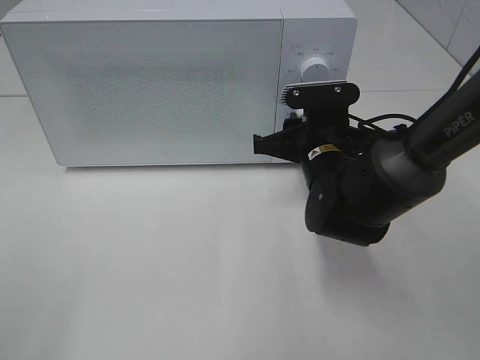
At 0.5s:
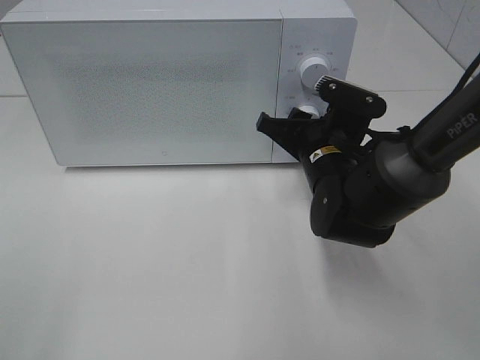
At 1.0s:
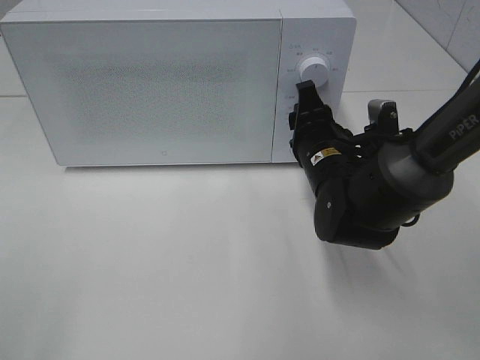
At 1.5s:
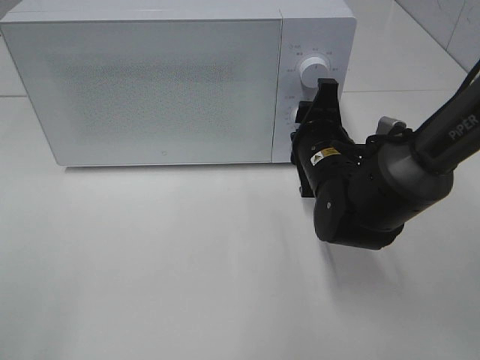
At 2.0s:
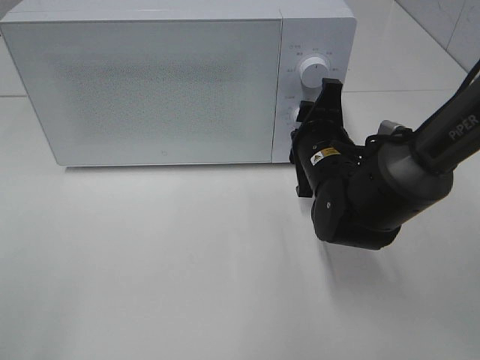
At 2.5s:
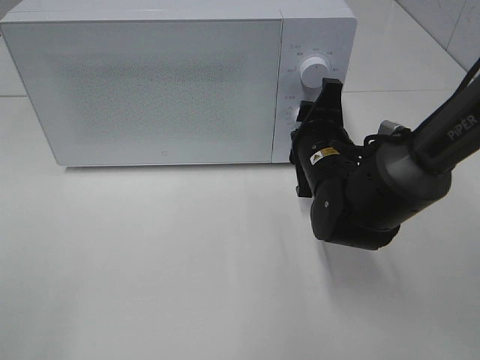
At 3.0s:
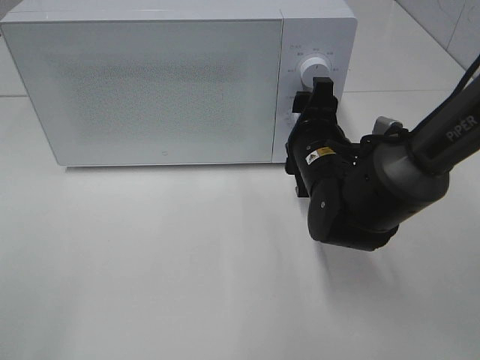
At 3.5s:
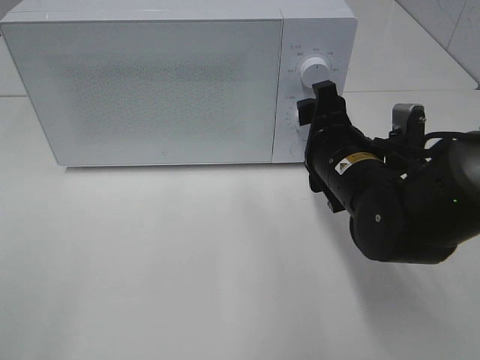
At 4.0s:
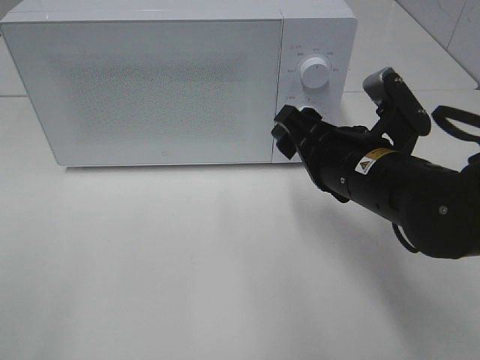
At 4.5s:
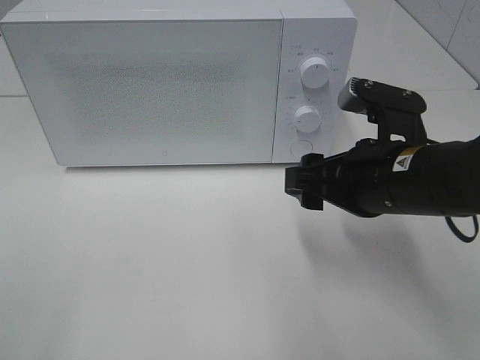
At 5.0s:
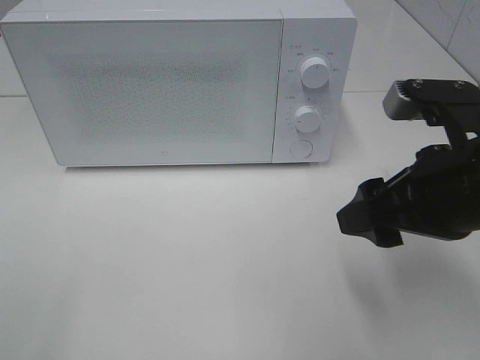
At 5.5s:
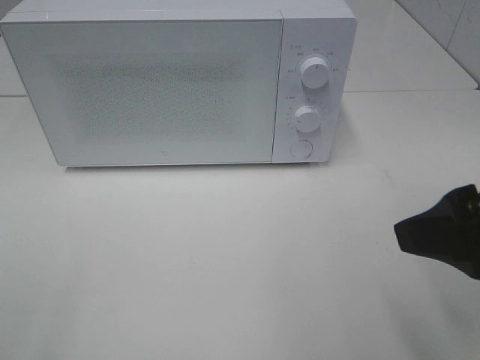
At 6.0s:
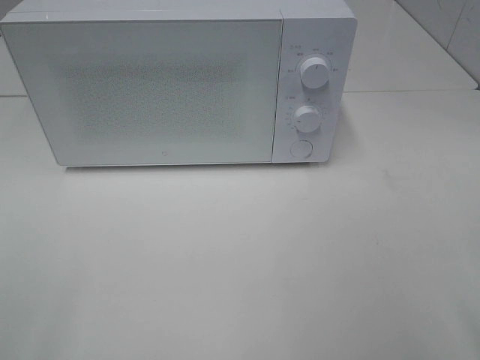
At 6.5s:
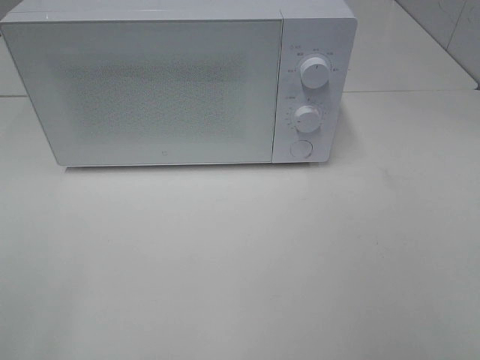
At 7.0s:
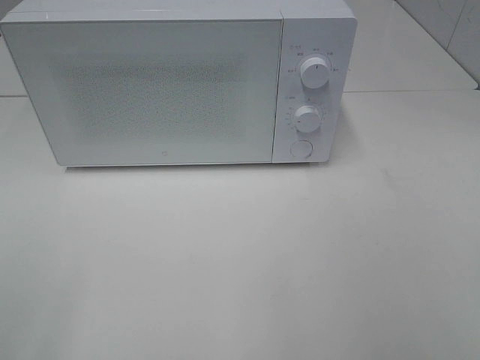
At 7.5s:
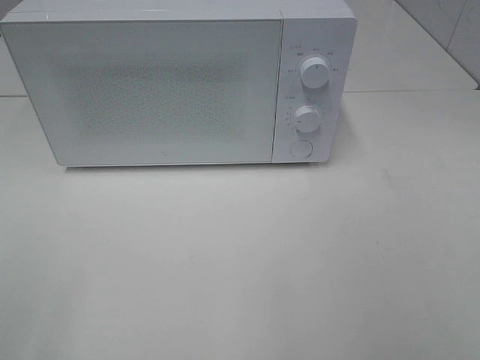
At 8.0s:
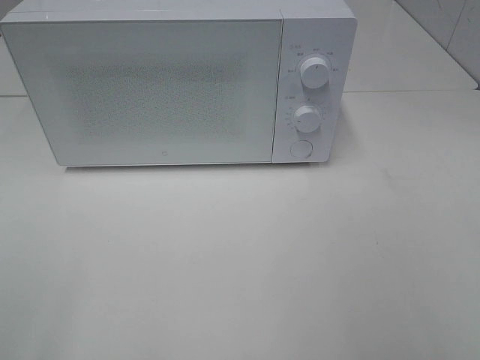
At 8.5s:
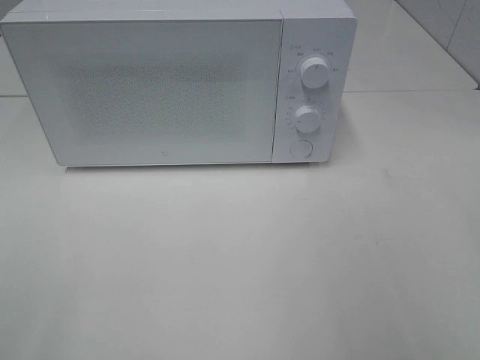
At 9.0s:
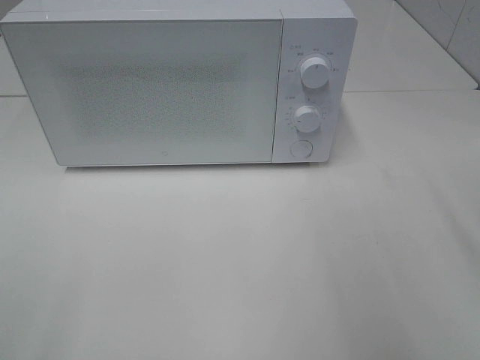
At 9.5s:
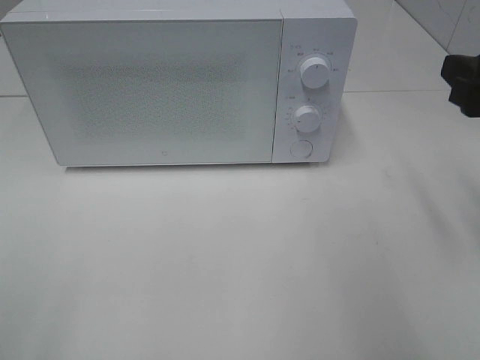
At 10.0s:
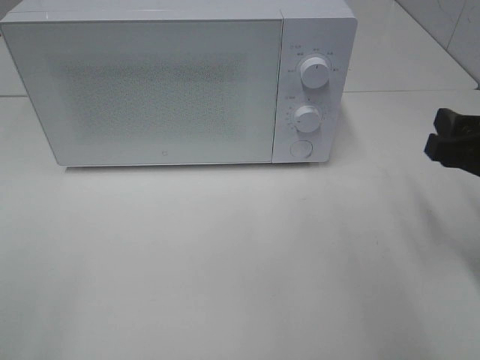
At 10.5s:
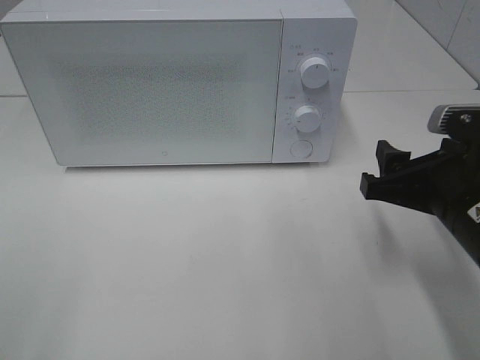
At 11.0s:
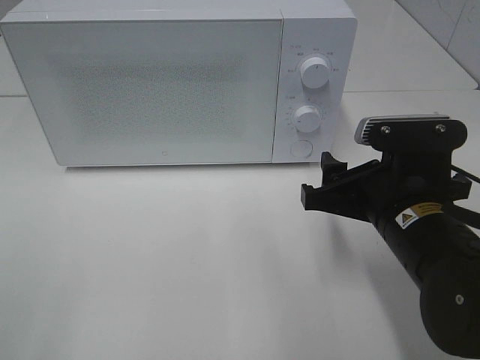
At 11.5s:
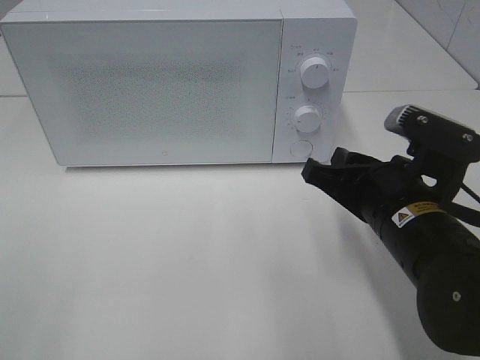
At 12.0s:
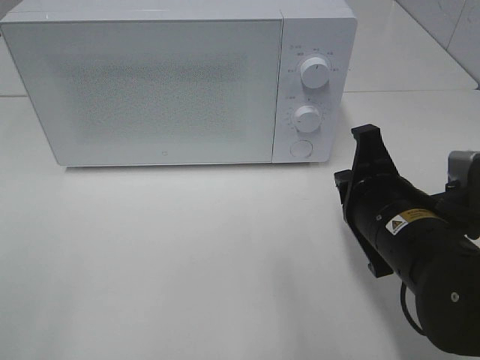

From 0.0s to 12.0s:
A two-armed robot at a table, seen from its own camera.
Task of the whole recording: Heat the burger.
Step, from 0.0s to 3.0s: Right hand: twist timer button.
From 2.0s to 4.0s: The right gripper is displaced backward and upward by about 10 cm, and opens its fingers.
From 4.0s to 6.0s: The right gripper moves backward, to the right and upward, some 25 cm.
From 8.0s to 10.0s: The right gripper shifts roughly 20 cm forward and downward.
From 10.0s to 12.0s: The right gripper heads to the left and downward, covering approximately 15 cm, and closes.

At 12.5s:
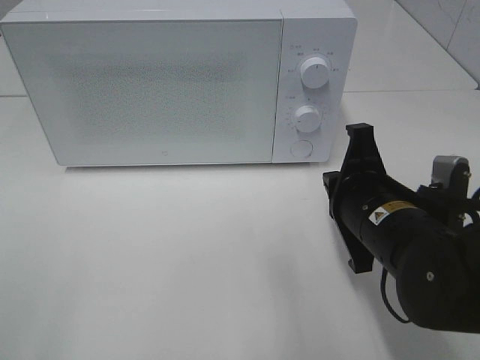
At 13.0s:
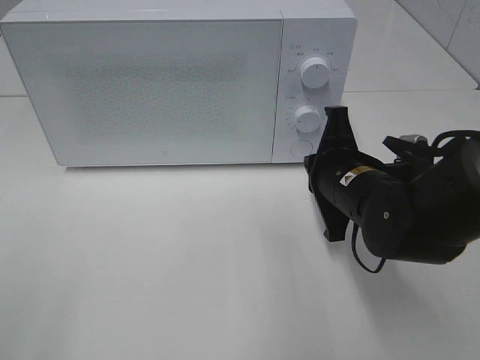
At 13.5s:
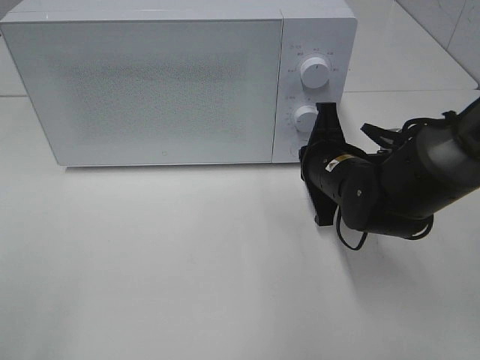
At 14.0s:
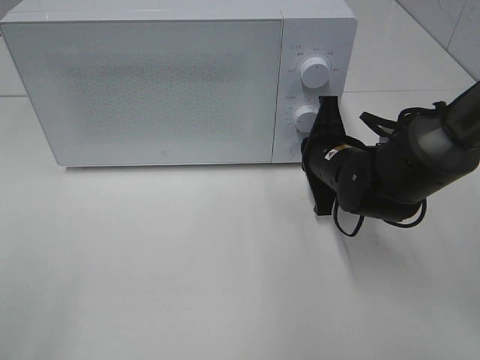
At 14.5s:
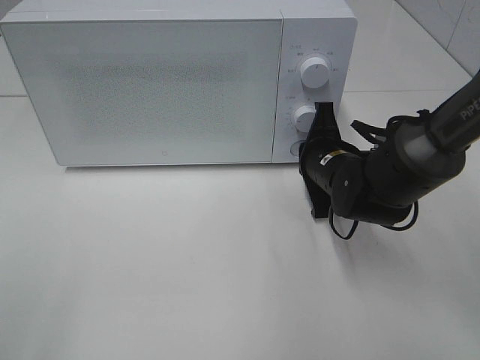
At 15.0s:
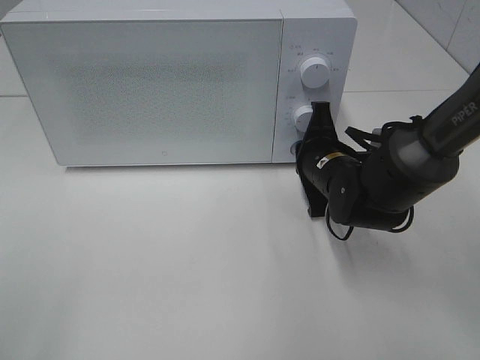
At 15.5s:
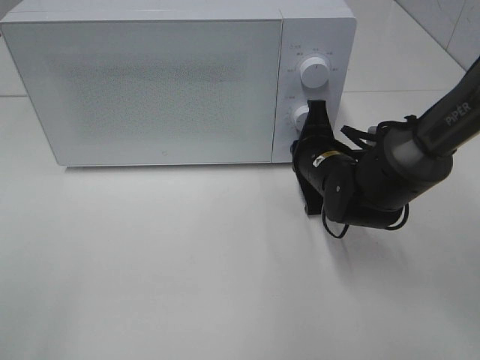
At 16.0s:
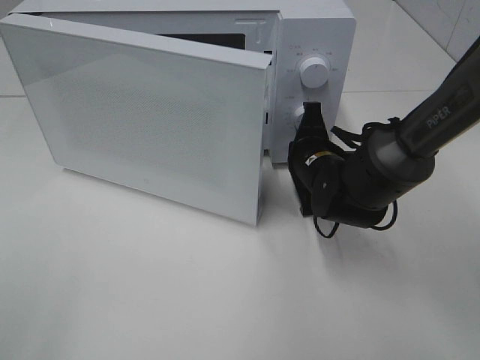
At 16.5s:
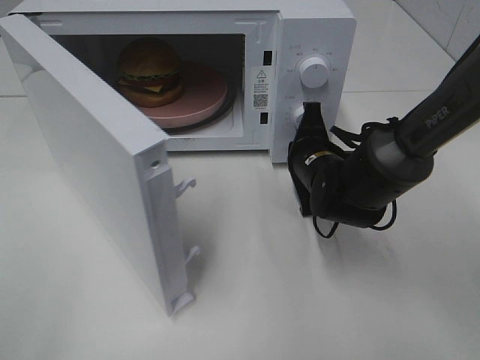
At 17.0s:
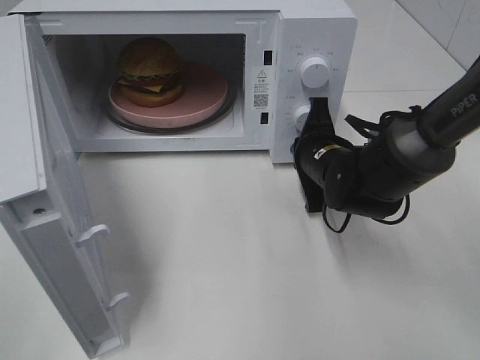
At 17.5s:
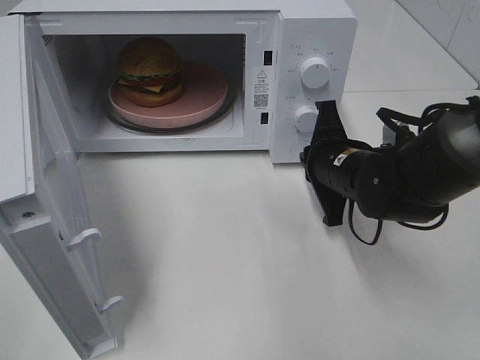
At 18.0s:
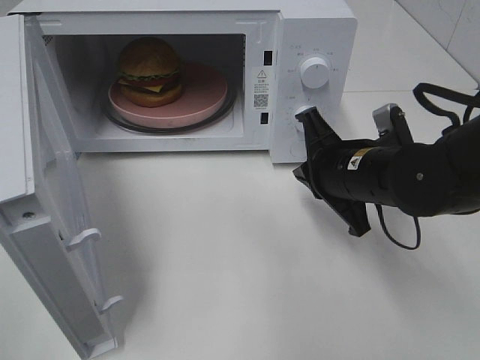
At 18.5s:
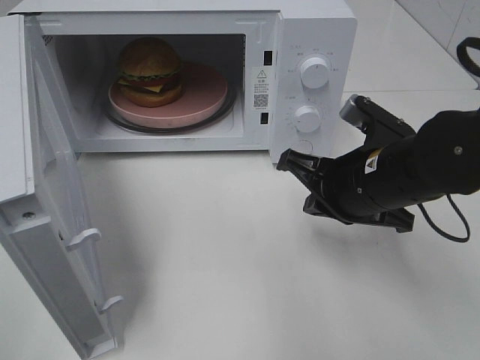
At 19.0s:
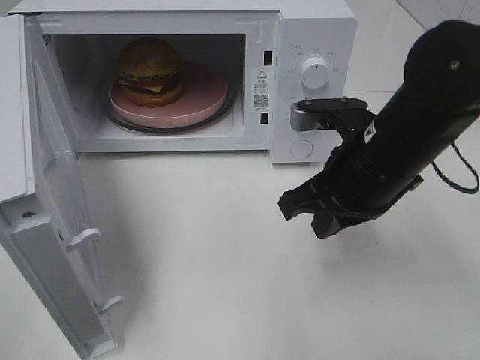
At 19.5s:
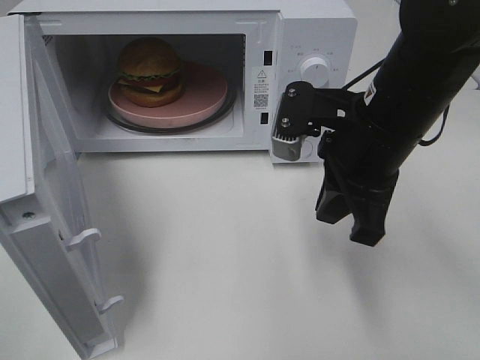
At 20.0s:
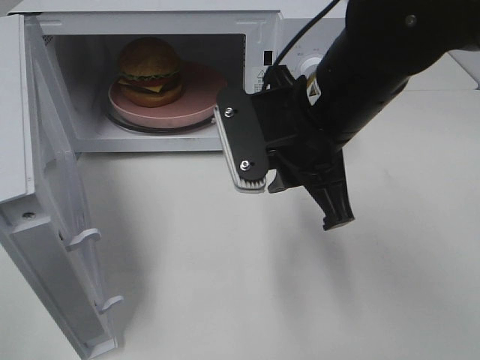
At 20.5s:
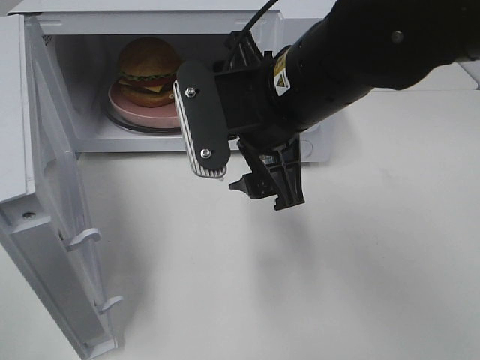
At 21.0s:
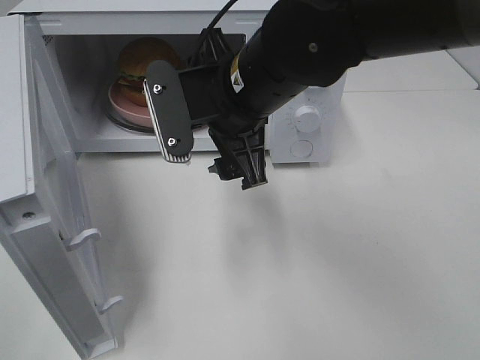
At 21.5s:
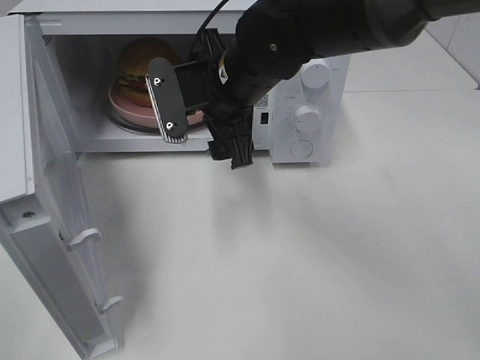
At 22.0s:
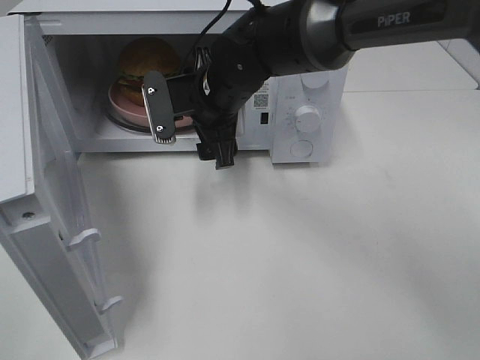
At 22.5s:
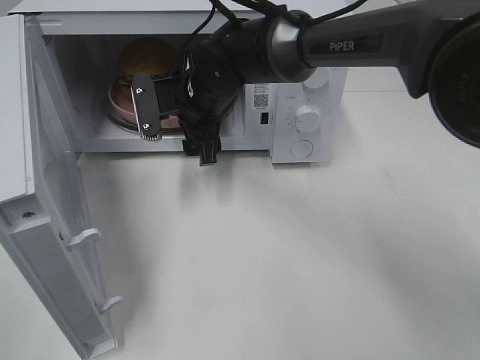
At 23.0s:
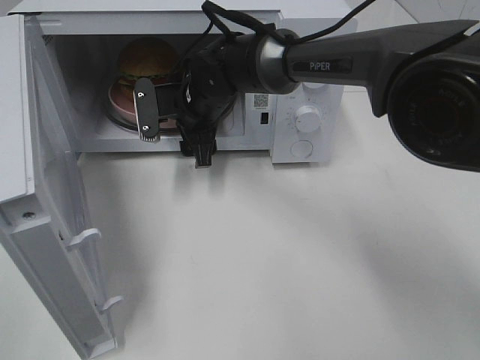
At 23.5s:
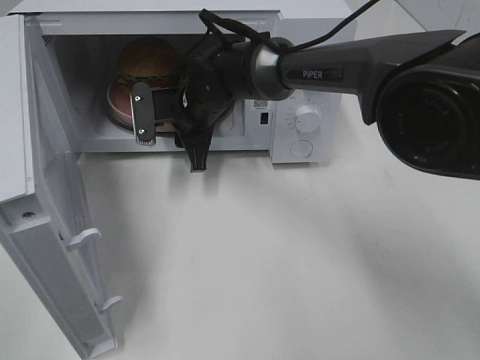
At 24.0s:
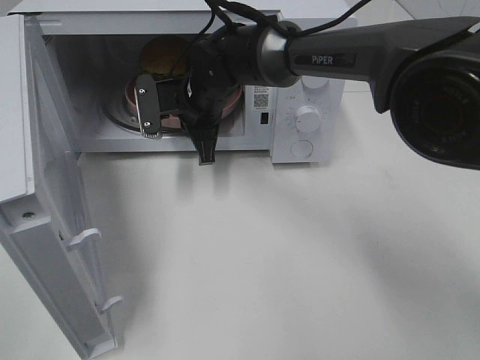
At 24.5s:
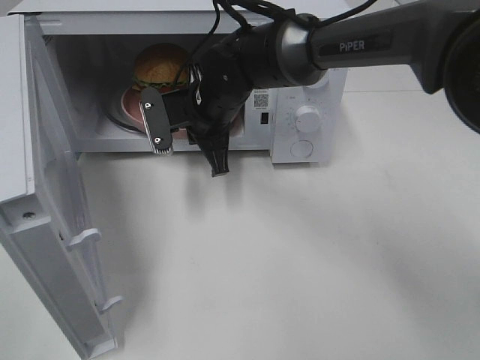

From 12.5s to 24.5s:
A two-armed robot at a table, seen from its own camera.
Task of the whole recording: Heat the burger.
Step, from 12.5s to 17.5s: Right hand: press the switch.
Step, from 18.0s to 23.5s: Right hand: grab the plate with the hamburger.
From 12.5s to 14.5s: The right gripper shifts about 10 cm forward.
From 16.5s to 18.5s: The right gripper is displaced backward and upward by some 10 cm.
From 18.5s to 20.5s: The right gripper goes about 15 cm upward and to the left, and opens.
From 20.5s to 22.5s: The right gripper heads forward, downward and to the left, covering about 20 cm.
From 22.5s to 24.5s: The right gripper closes its fingers.

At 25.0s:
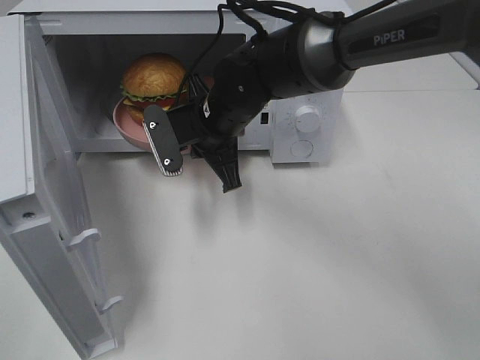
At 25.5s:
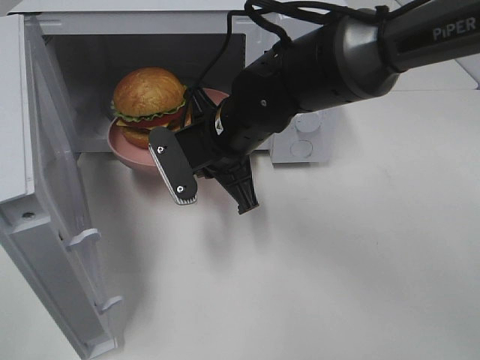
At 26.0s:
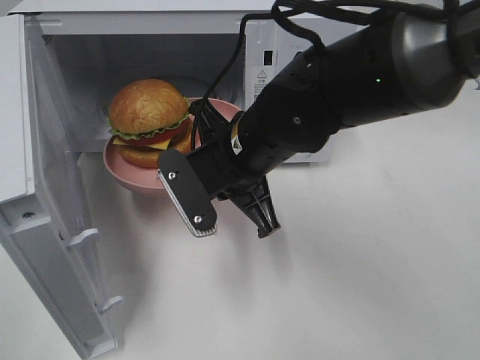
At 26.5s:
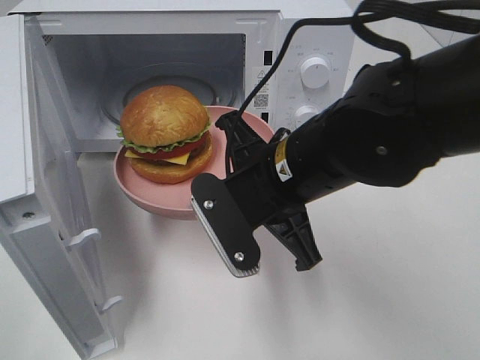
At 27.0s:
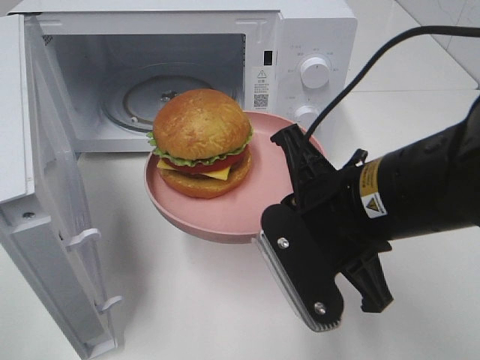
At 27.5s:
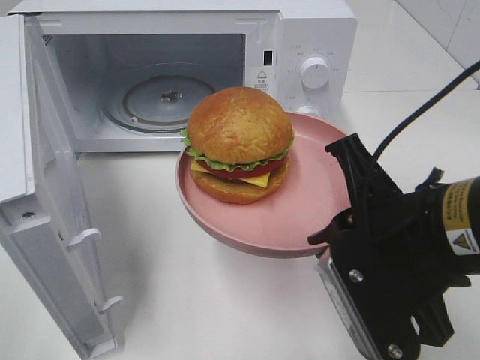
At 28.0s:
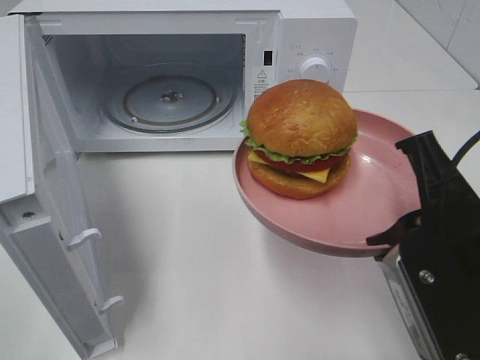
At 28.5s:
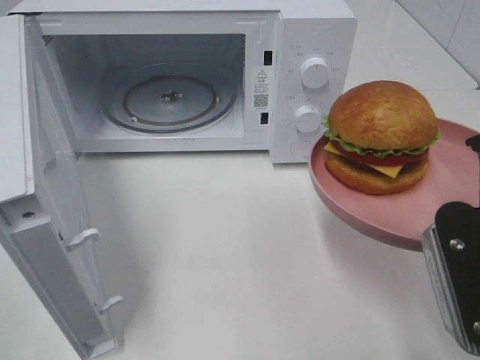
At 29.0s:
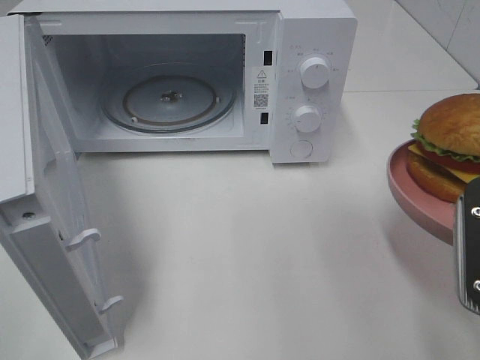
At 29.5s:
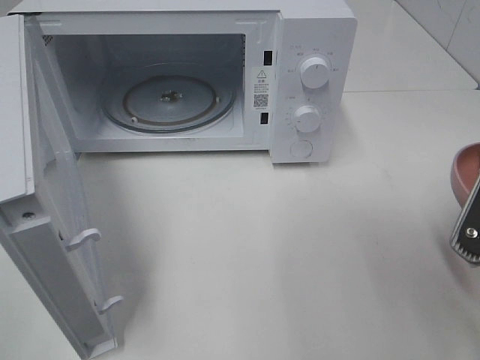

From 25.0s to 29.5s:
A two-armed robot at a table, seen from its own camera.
Task of the whole recording: Heat the burger.
From 25.0s to 27.0s: The right gripper moves backward and to the right, some 20 cm.
From 27.0s to 29.5s: The right gripper shifts roughly 15 cm to the right and backward.
